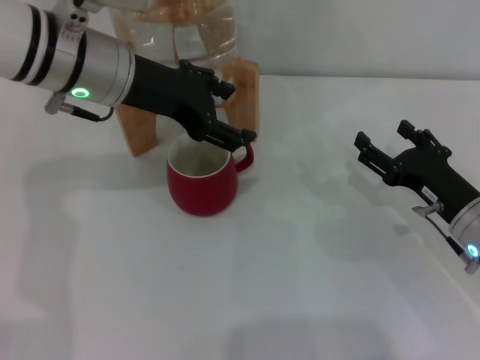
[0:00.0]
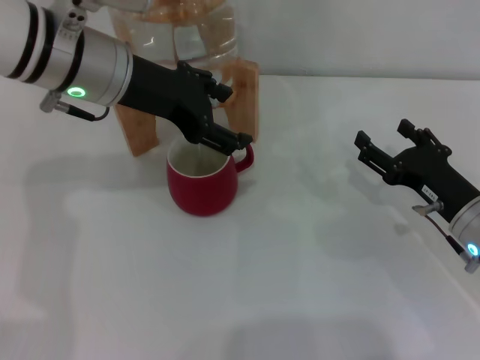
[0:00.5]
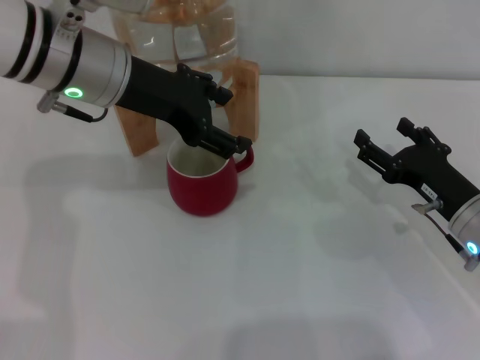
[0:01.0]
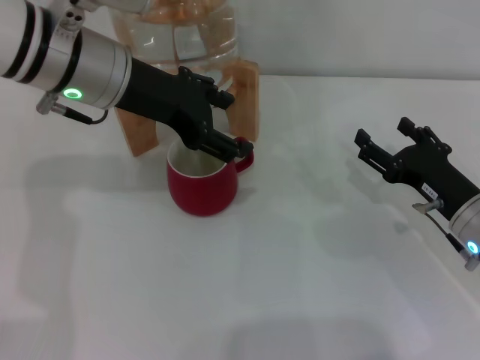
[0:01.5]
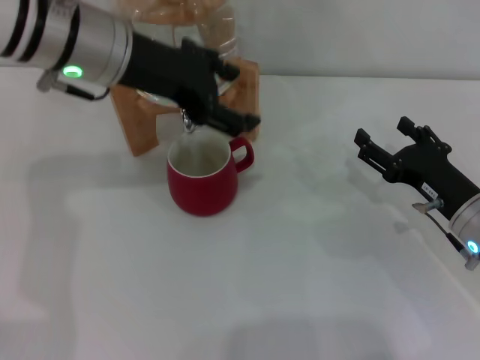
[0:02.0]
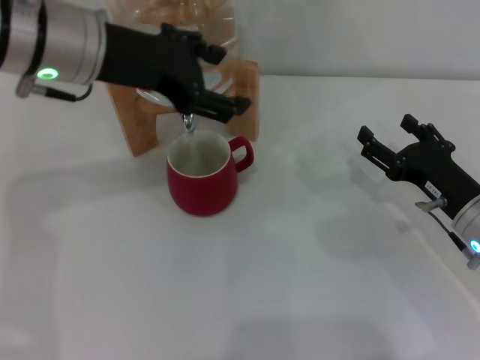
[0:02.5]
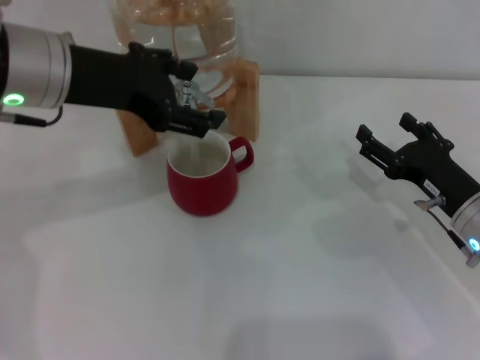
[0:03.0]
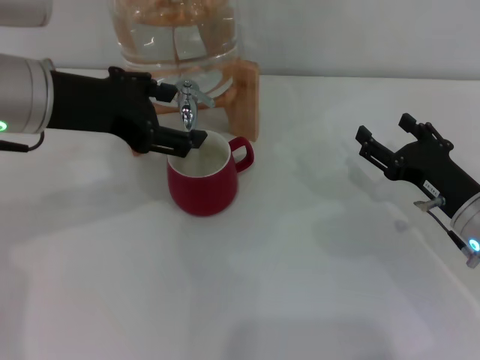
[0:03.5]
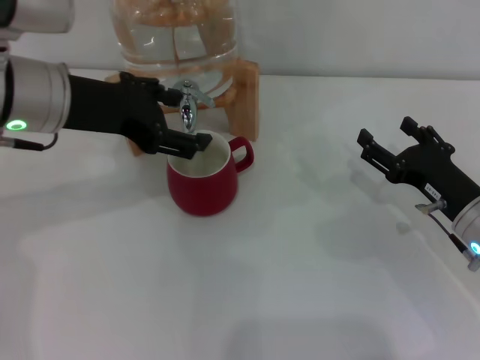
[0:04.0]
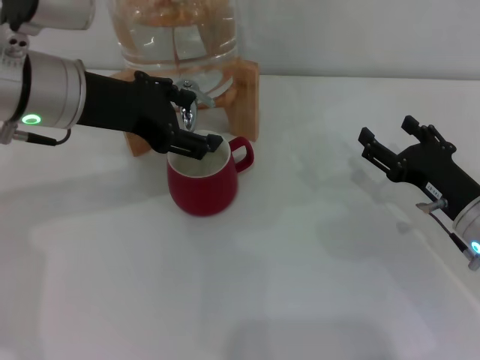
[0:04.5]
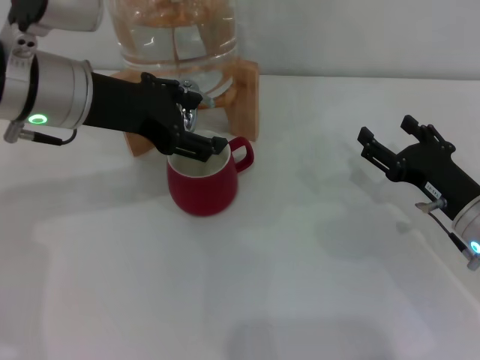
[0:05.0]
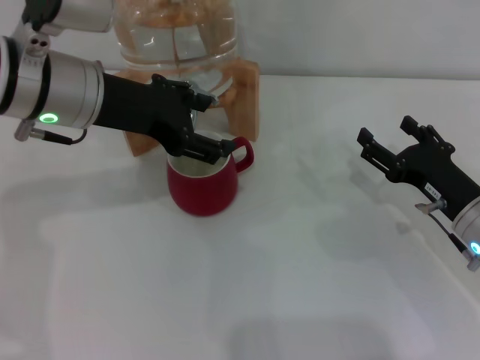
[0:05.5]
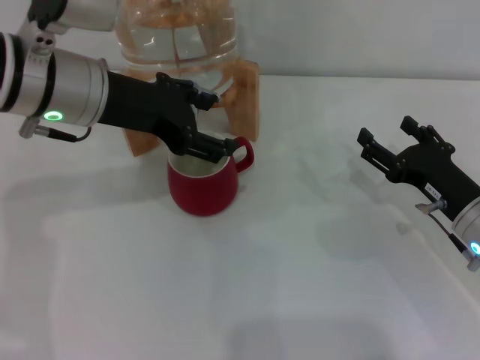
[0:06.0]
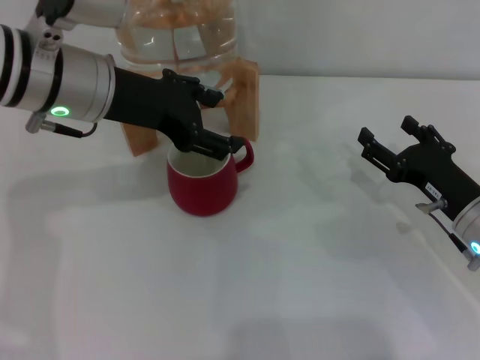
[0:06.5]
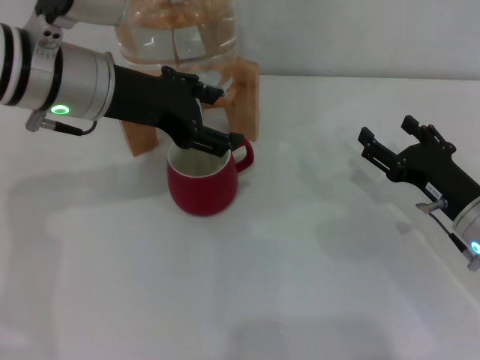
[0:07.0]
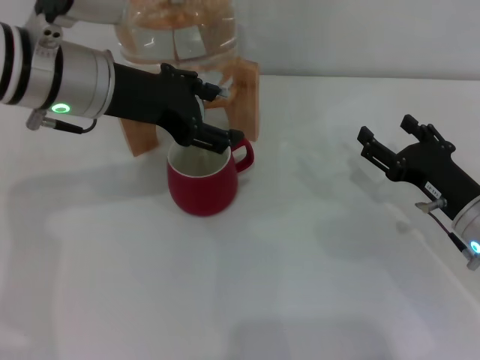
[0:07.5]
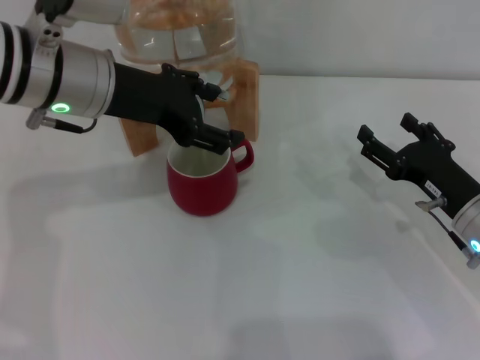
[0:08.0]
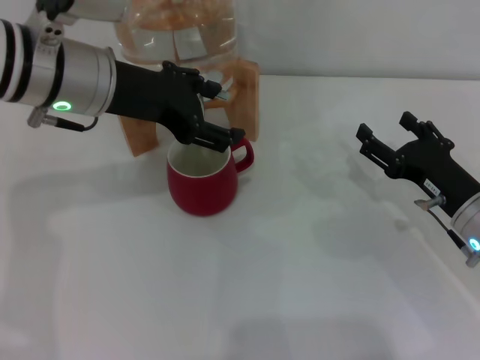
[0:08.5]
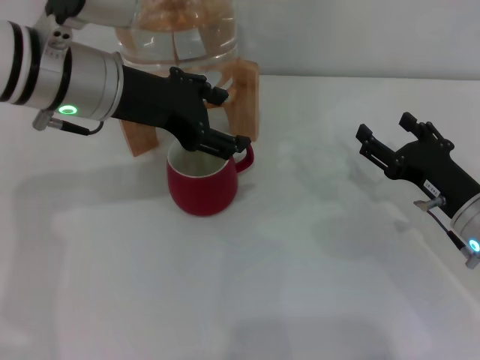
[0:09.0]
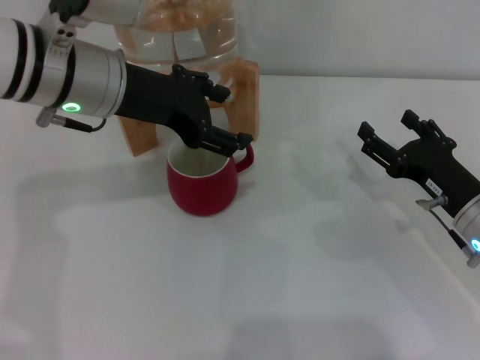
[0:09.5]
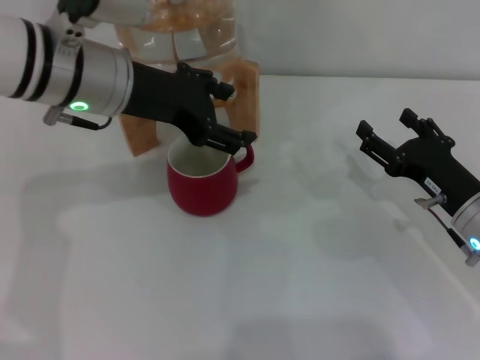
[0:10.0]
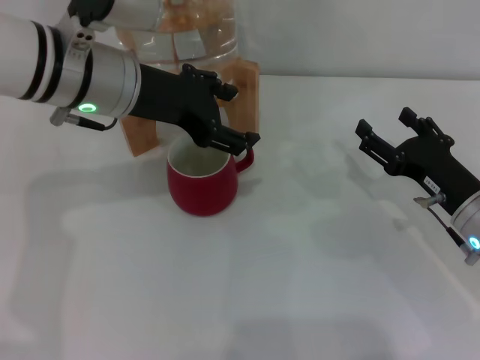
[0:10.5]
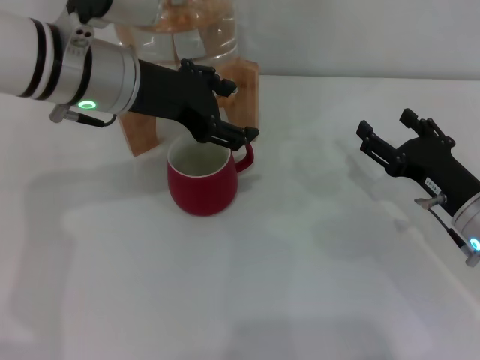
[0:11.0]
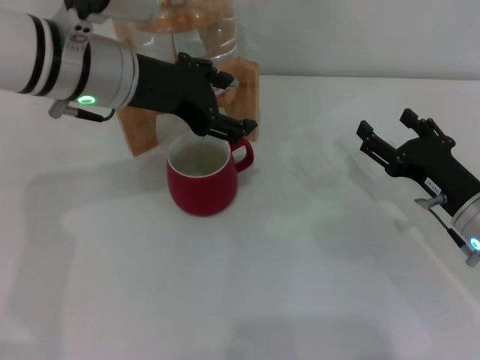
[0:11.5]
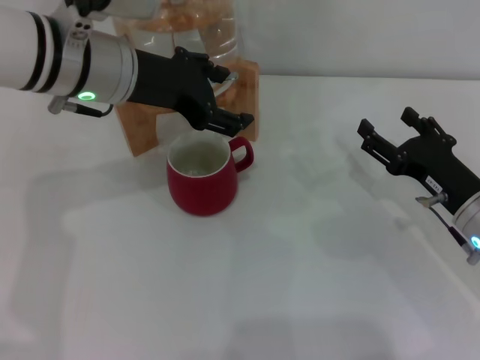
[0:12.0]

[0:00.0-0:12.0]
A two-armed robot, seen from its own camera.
Task of the whole recording: the right gripper pick up the red cup and place it horizontally under the faucet, the left gripper turn on the faucet to fill the cup, and then turn off the faucet.
Step, 0:00.0 to 0:03.5: Open the dispenser valve and fill the cup with water with the left gripper.
0:00.0 to 0:02.0: The grippers move only a little.
0:02.0 to 0:04.0: The left gripper changes place by about 5 cm.
0:04.0 to 0:06.0: The grippers make only small movements.
0:06.0 to 0:08.0: Both grippers stay about where they are.
0:08.0 to 0:10.0: Neither gripper changes place.
0:10.0 to 0:12.0: Both grippers stay about where they are.

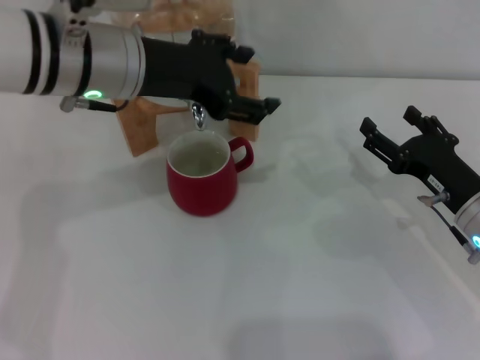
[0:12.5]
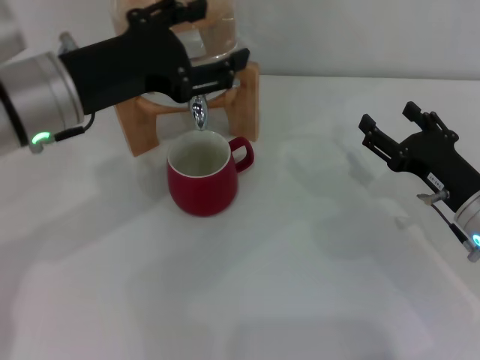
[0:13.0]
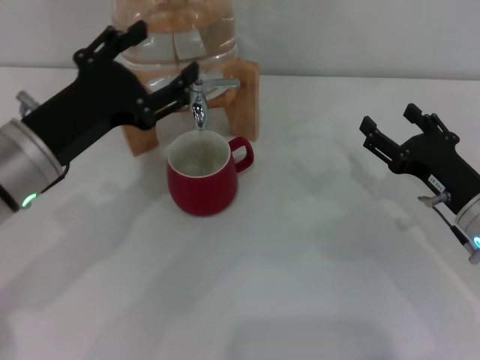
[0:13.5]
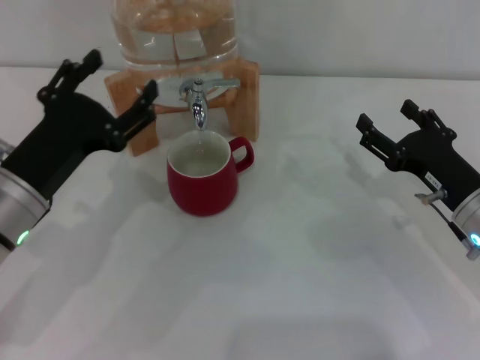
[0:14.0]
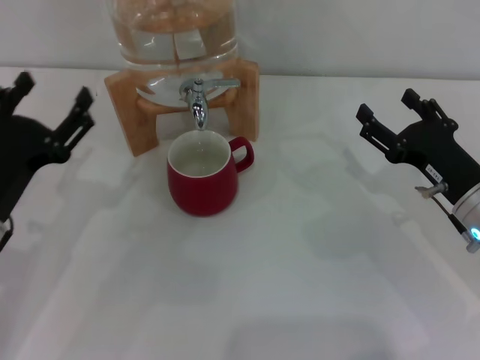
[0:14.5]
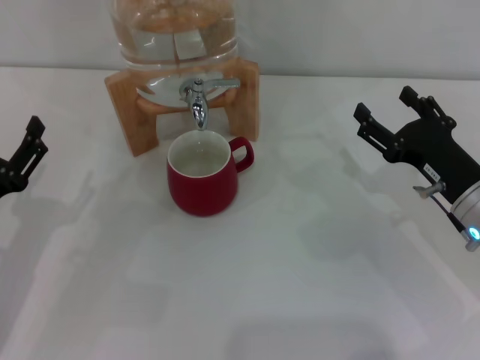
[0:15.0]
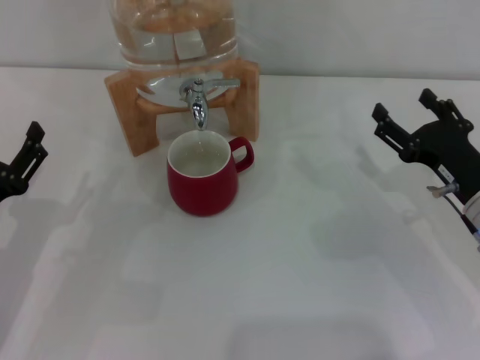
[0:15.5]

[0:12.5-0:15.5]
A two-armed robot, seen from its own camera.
Task of the whole recording: the right gripper pick up the red cup and place it horizontally under the faucet, the left gripper turn on the faucet to fill the cup, and then turn off the faucet.
0:12.5 to 0:14.0: The left gripper is displaced downward, backward and to the left by approximately 15 cm.
0:14.0 to 0:15.5: The left gripper goes about 10 cm to the left and downward.

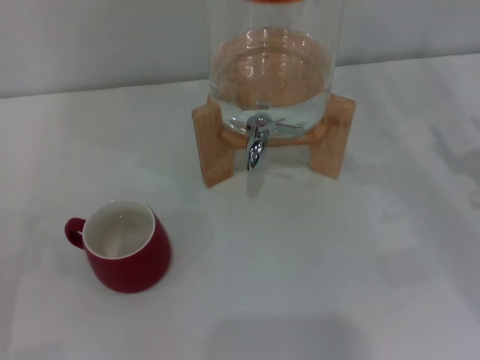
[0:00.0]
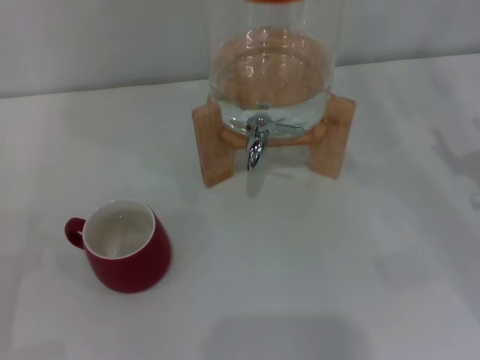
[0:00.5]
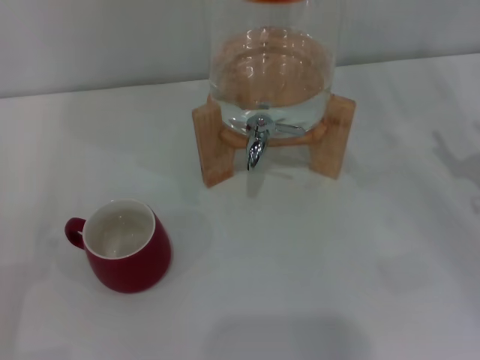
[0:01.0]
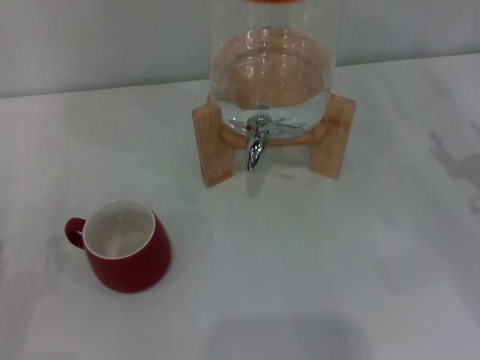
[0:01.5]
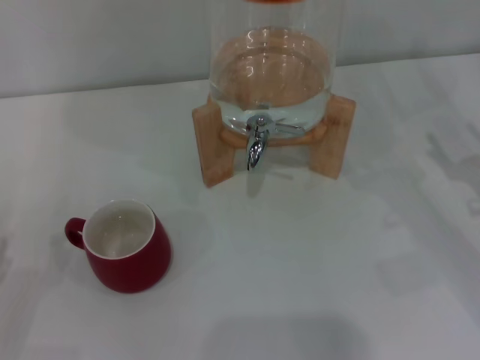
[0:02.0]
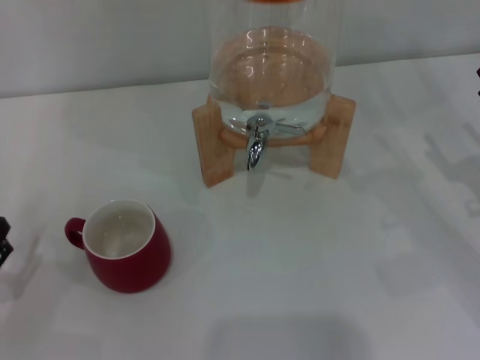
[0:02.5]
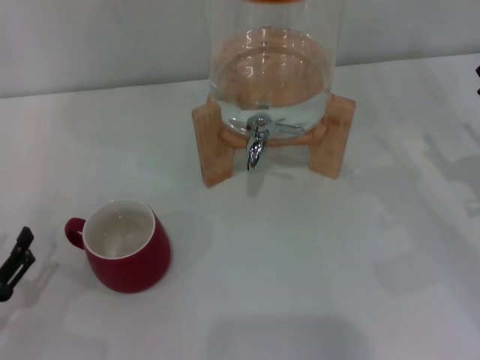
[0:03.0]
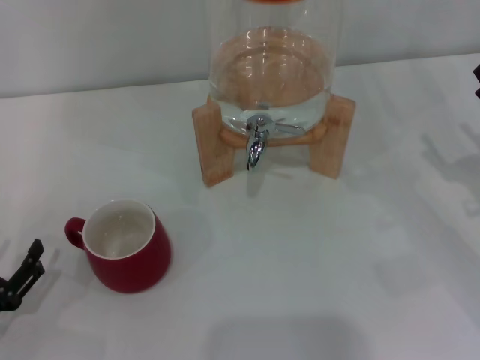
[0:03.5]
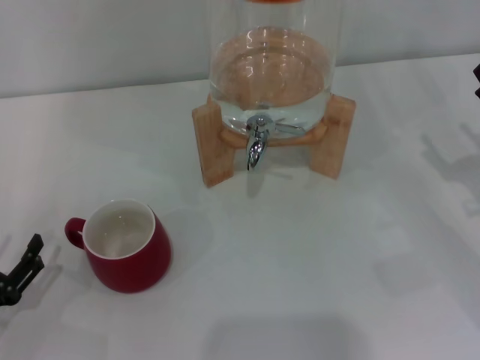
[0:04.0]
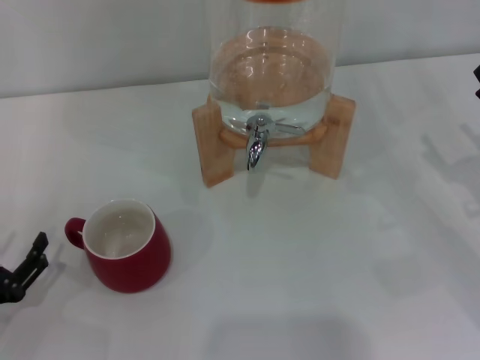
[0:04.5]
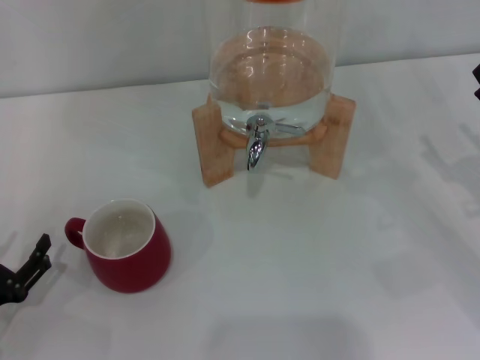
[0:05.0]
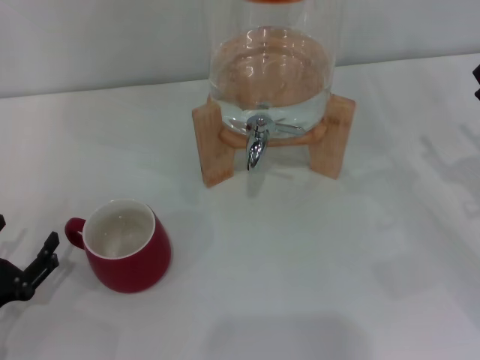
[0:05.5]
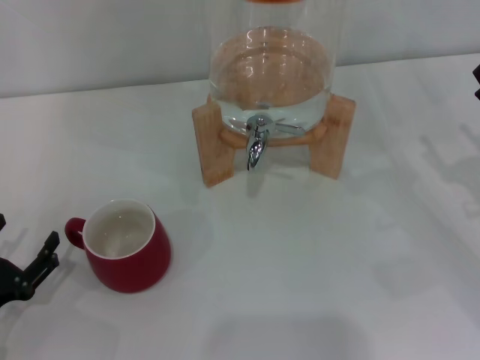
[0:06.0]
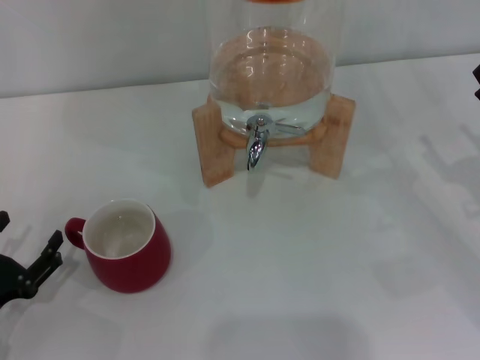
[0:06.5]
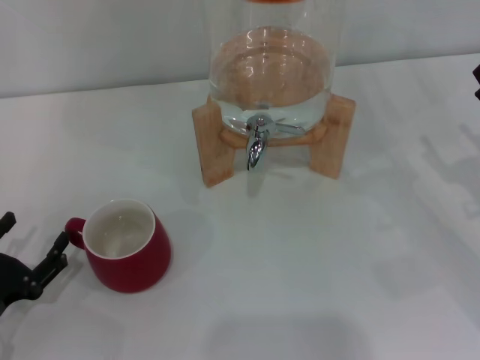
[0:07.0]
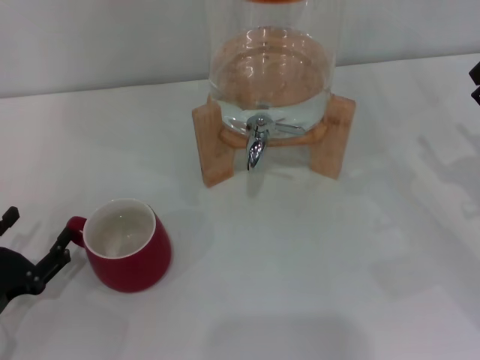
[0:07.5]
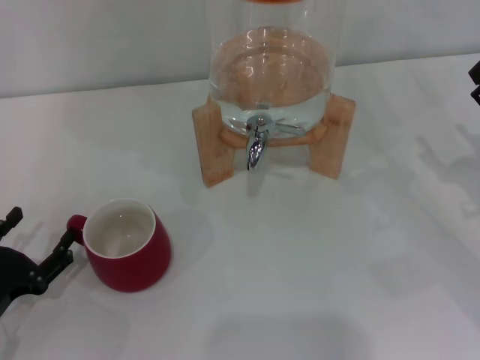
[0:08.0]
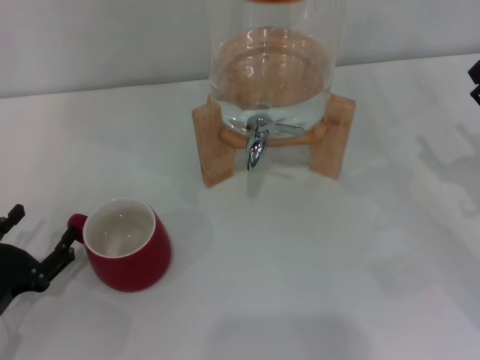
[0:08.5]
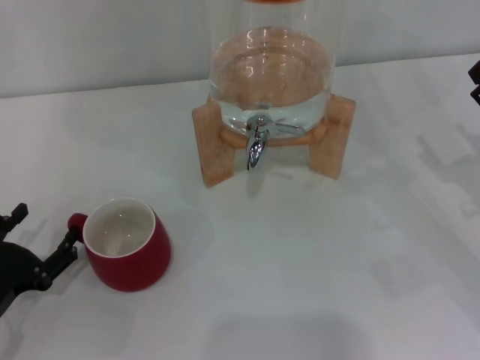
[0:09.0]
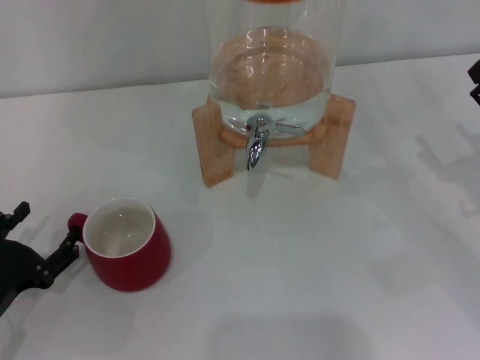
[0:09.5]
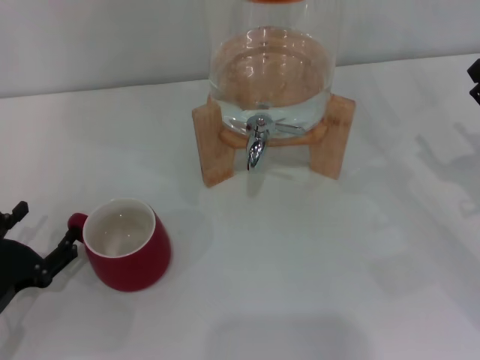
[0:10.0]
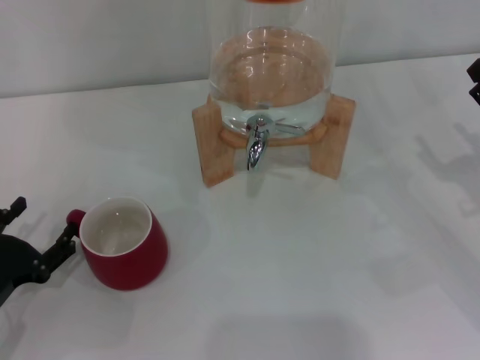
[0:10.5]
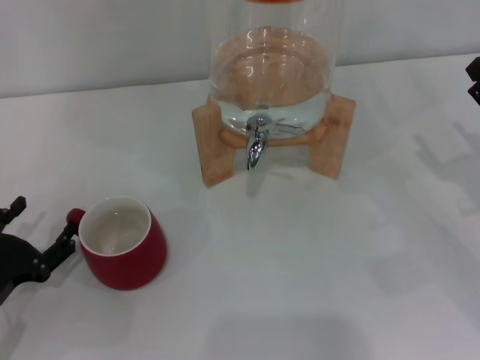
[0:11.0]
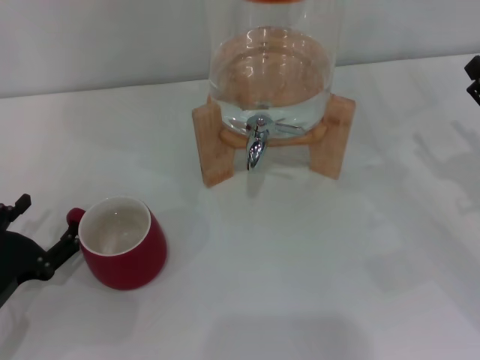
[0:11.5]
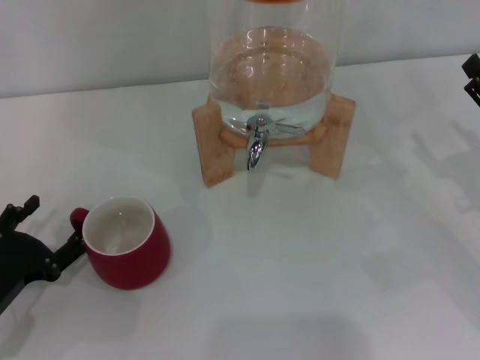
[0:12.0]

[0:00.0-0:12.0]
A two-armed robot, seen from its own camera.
Task of the whole recording: the left gripper pick up the red cup and place it horizontally under the faucet, the right gripper turn on the faucet to fill the cup, and then turn off the faucet.
0:02.0 to 0:06.0: The grippers stay close to where they were, moving slightly.
0:06.0 to 0:08.0: Neither gripper changes place.
0:08.0 to 0:10.0: Both grippers stay put.
0:10.0 to 0:12.0: Neither gripper changes place.
